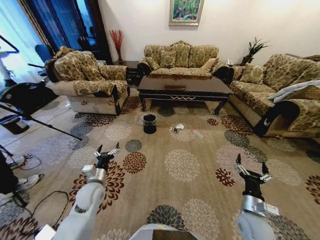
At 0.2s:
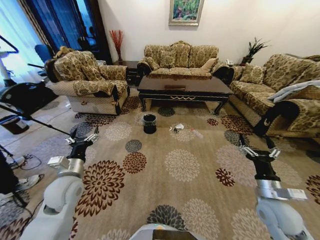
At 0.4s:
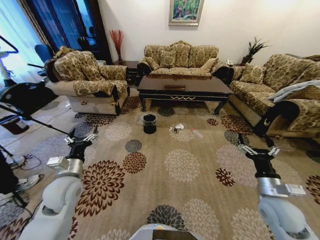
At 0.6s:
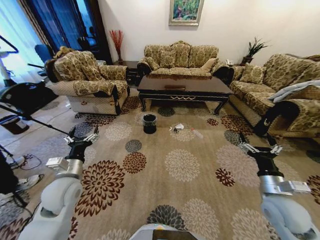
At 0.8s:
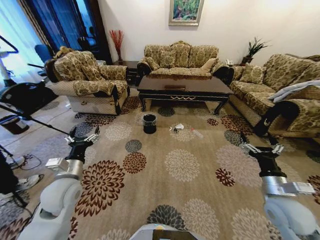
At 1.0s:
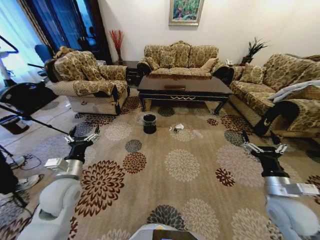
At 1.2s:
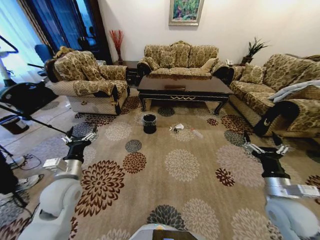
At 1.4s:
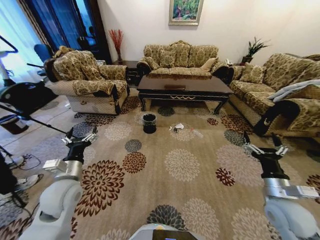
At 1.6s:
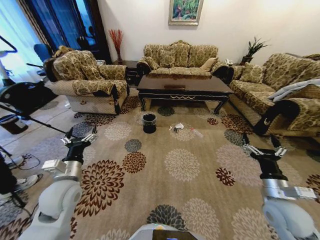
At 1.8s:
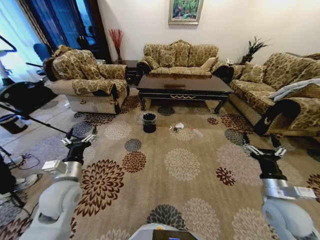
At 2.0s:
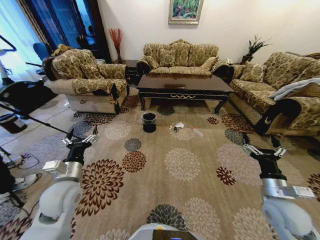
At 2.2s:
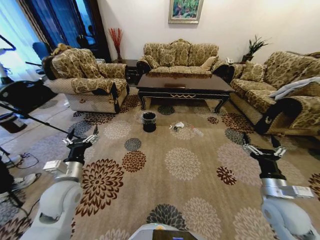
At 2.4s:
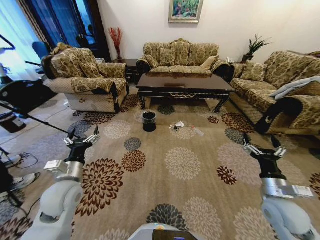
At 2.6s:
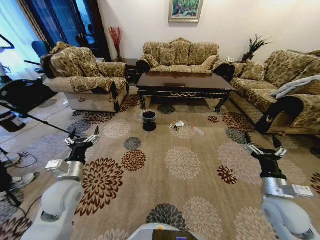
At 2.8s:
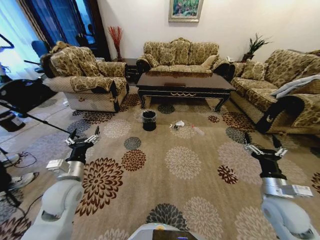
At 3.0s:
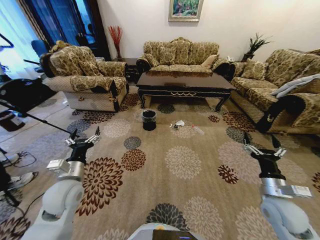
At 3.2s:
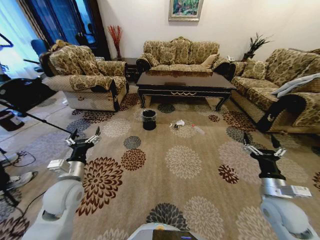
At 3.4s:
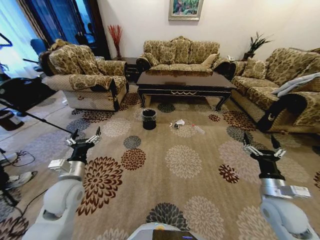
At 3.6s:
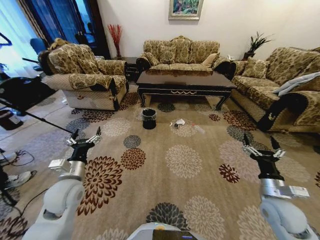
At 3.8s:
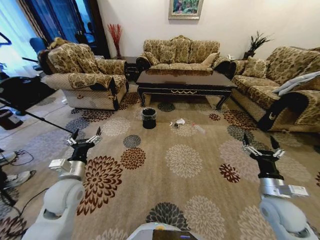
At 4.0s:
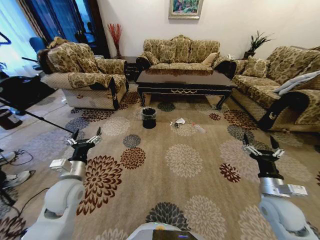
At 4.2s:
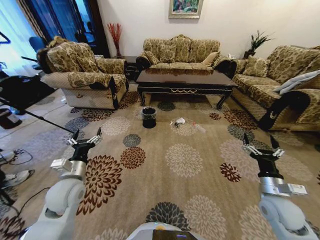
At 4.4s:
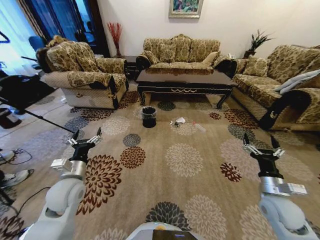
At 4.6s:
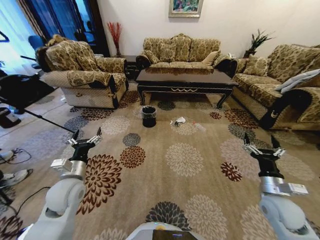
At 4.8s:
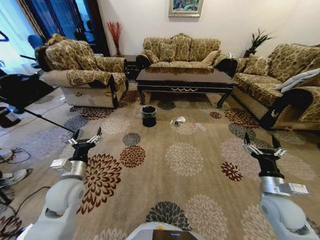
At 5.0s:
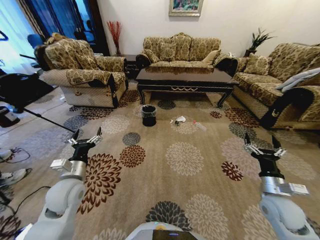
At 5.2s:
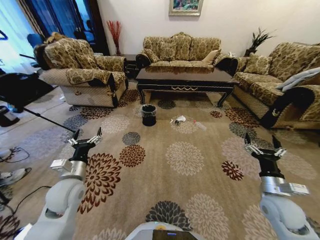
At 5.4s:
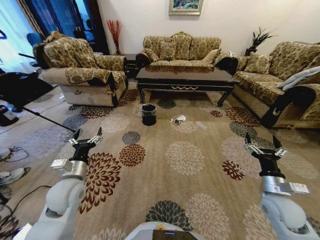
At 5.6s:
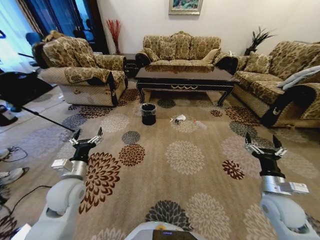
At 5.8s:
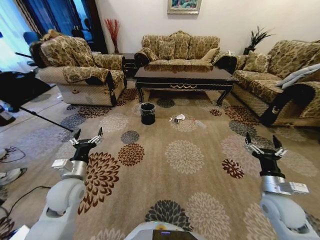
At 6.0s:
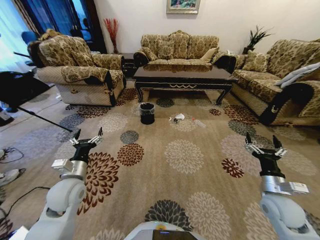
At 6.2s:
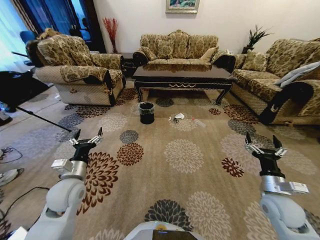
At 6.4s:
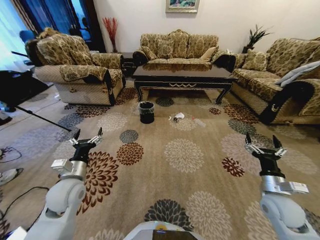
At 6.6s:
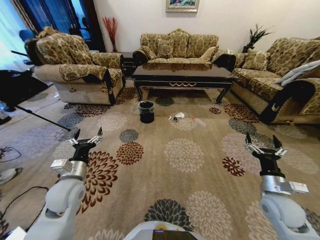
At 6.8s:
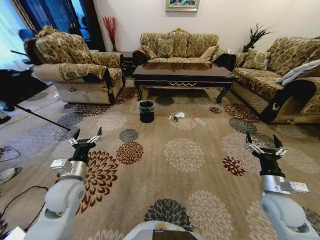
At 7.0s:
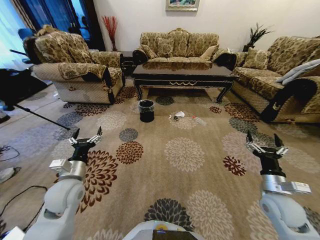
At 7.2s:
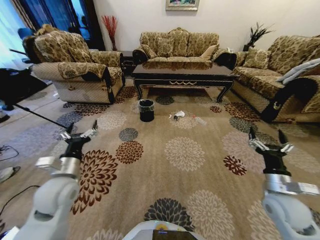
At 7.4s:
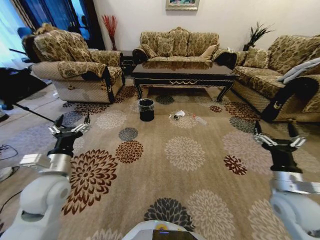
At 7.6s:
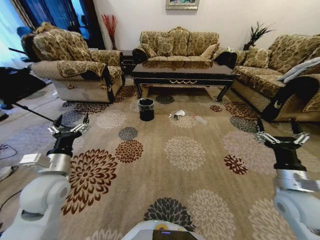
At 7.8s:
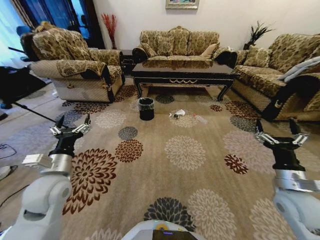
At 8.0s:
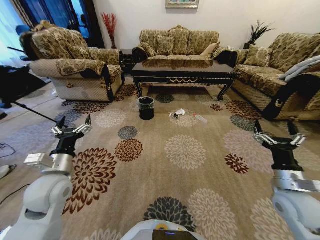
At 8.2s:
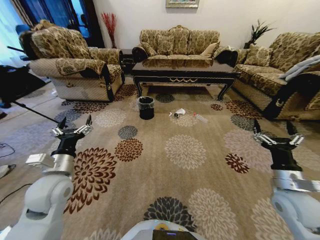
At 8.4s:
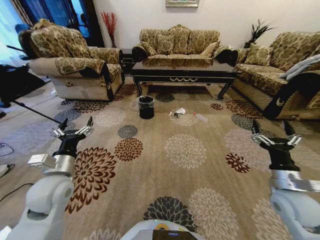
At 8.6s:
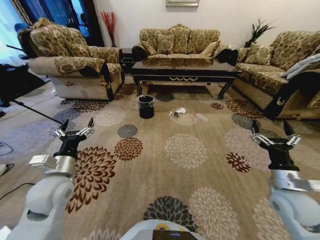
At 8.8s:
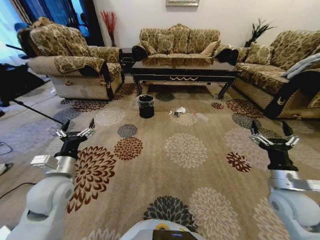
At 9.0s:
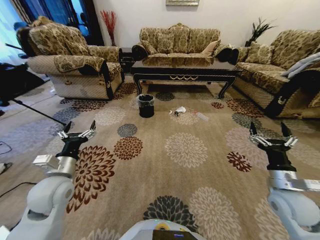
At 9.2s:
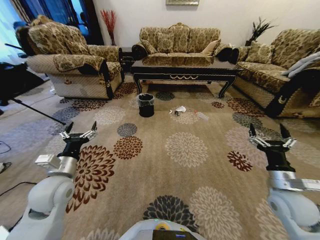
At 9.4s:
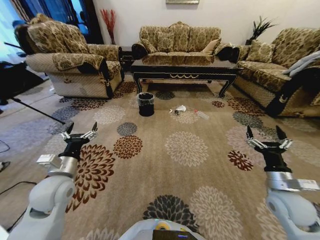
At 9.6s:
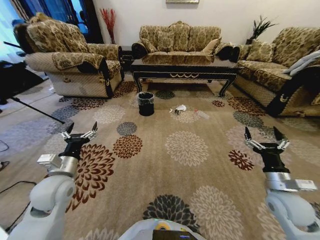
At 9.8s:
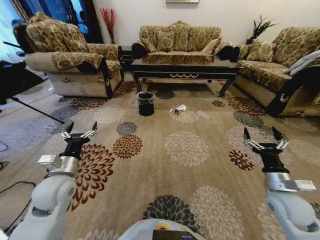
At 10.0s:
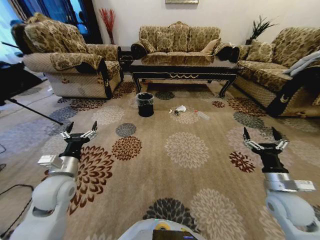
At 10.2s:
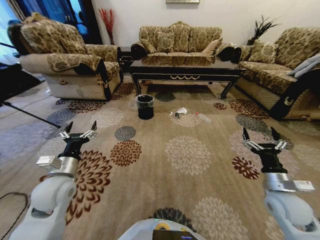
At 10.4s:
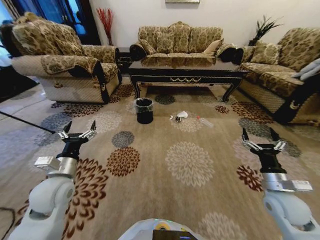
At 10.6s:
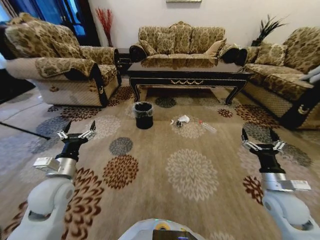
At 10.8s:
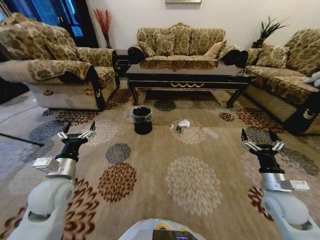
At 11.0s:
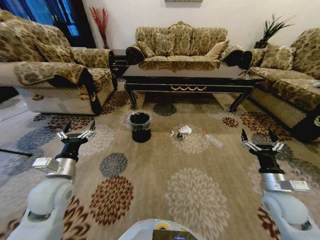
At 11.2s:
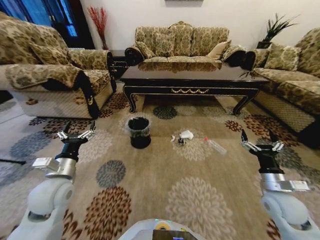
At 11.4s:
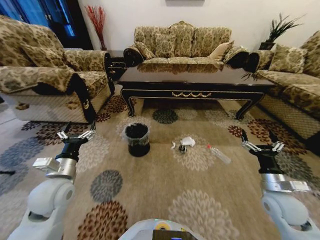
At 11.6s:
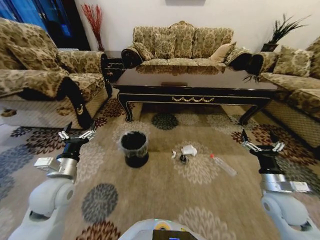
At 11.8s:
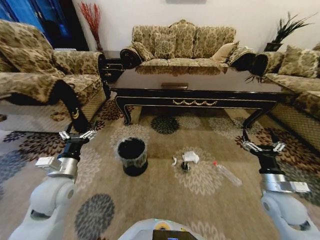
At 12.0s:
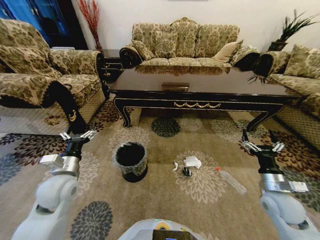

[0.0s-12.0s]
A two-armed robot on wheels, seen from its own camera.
Task of the whole recording: Move to the front of the table and pick up the trash from the floor, then place it into the trash bin.
6.0s to 7.6s: The two grippers go roughly 5 cm upward.

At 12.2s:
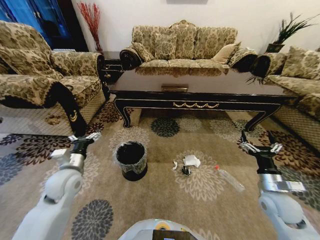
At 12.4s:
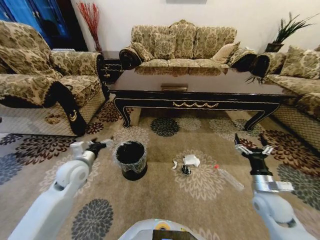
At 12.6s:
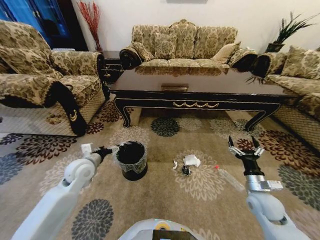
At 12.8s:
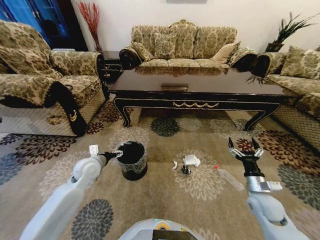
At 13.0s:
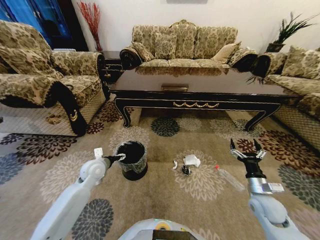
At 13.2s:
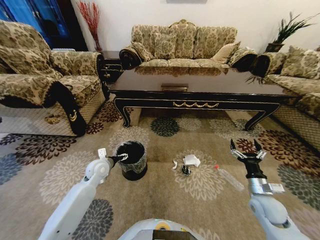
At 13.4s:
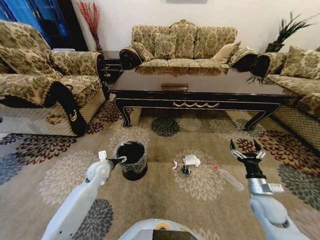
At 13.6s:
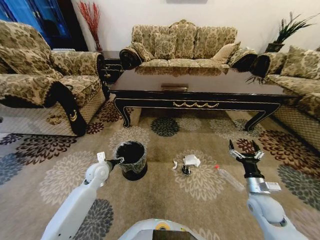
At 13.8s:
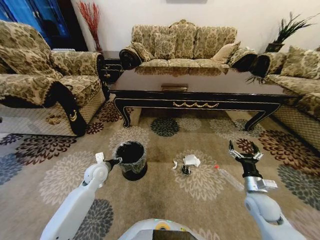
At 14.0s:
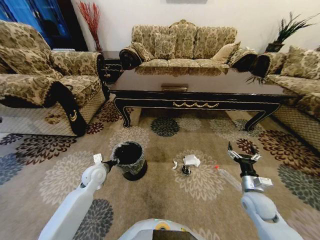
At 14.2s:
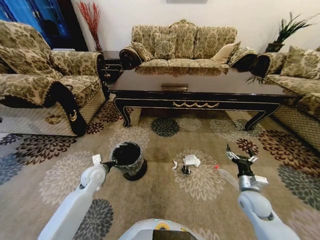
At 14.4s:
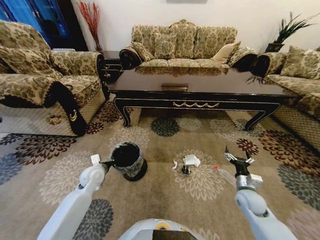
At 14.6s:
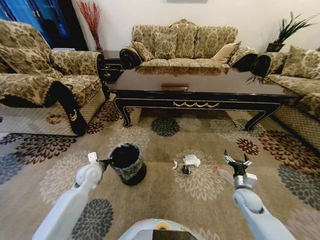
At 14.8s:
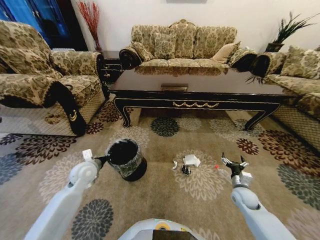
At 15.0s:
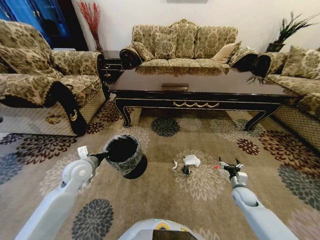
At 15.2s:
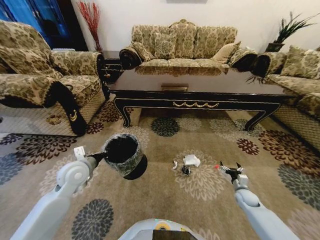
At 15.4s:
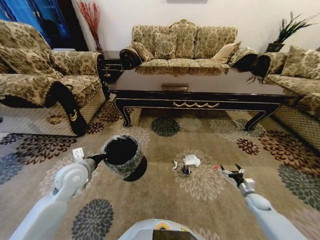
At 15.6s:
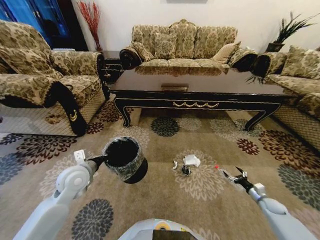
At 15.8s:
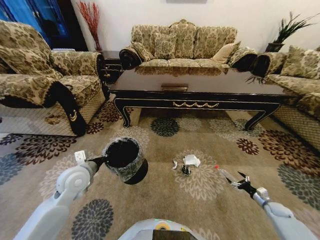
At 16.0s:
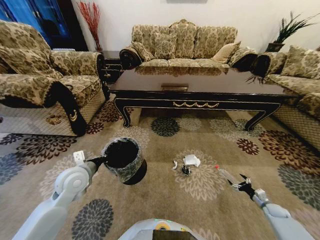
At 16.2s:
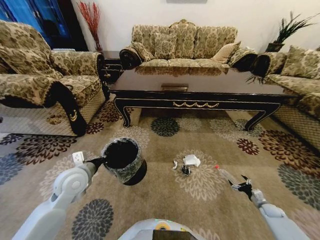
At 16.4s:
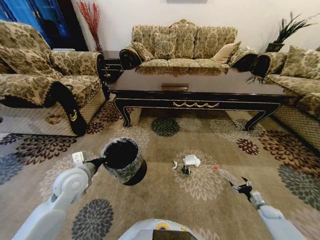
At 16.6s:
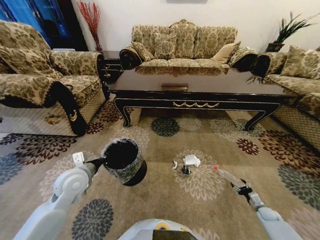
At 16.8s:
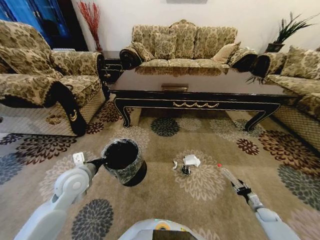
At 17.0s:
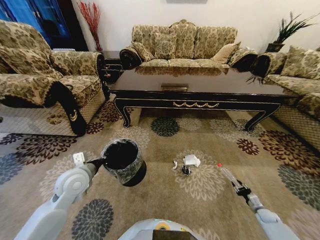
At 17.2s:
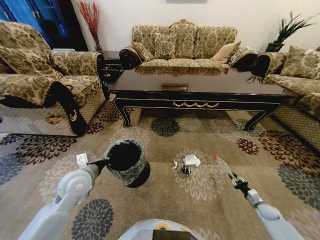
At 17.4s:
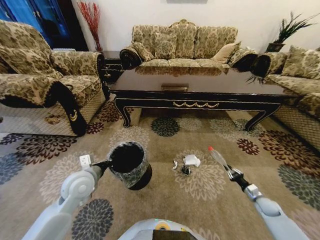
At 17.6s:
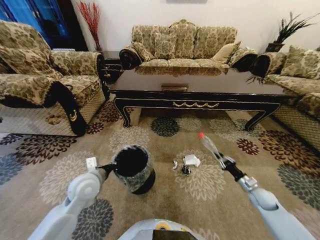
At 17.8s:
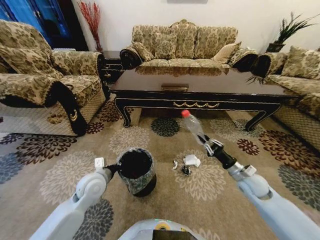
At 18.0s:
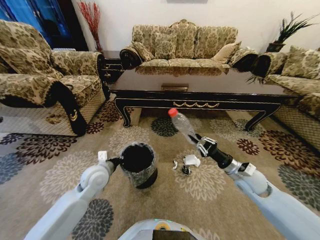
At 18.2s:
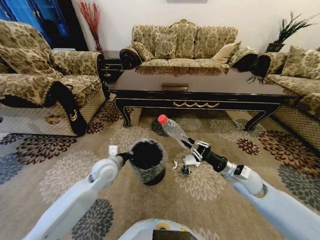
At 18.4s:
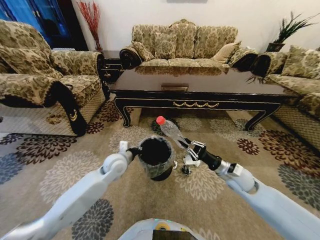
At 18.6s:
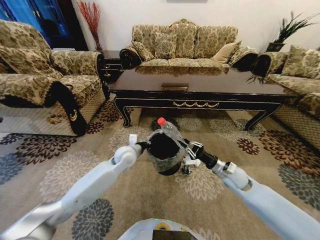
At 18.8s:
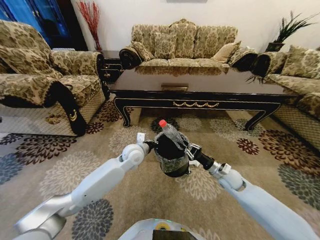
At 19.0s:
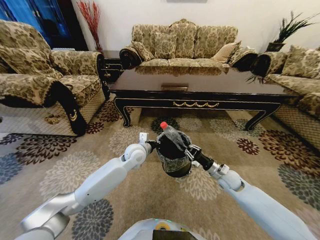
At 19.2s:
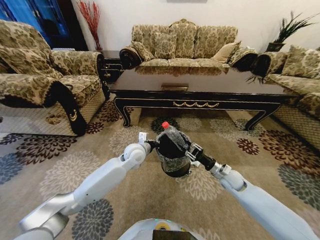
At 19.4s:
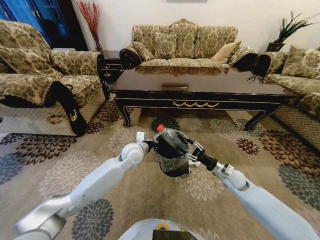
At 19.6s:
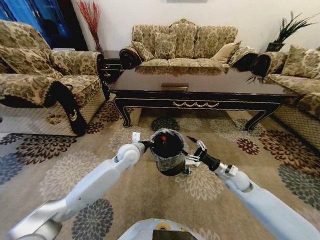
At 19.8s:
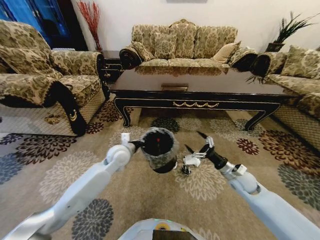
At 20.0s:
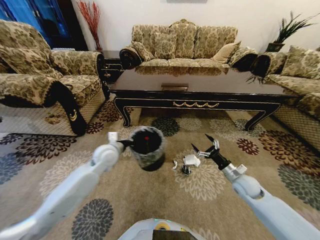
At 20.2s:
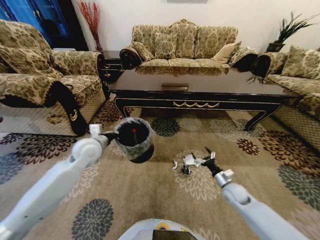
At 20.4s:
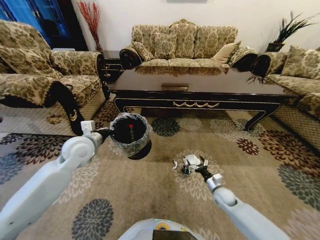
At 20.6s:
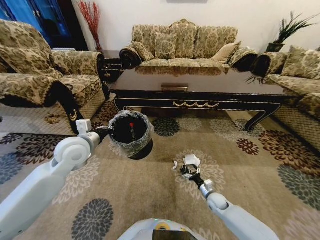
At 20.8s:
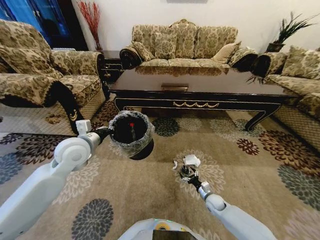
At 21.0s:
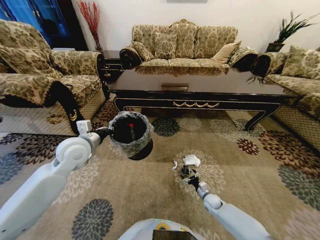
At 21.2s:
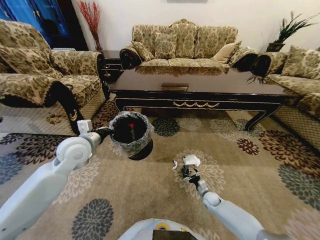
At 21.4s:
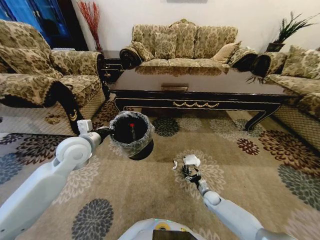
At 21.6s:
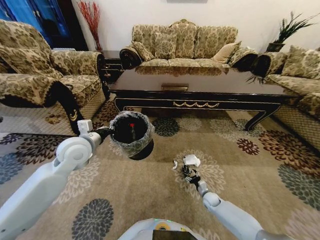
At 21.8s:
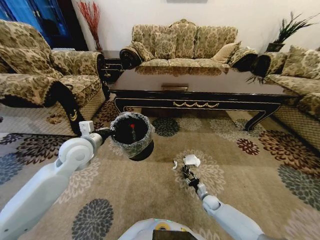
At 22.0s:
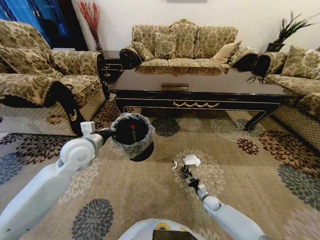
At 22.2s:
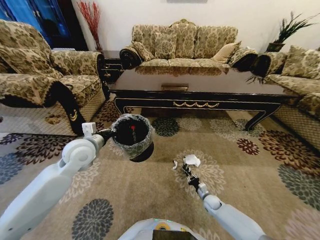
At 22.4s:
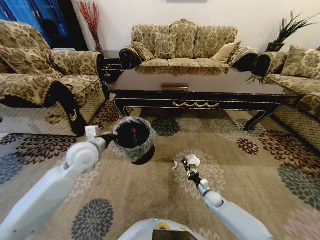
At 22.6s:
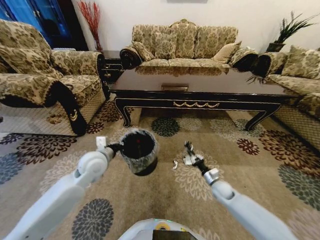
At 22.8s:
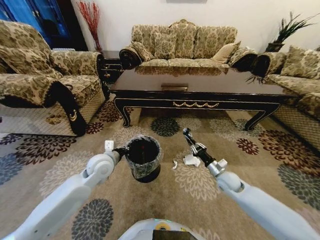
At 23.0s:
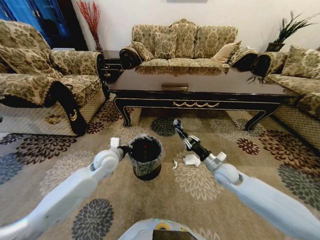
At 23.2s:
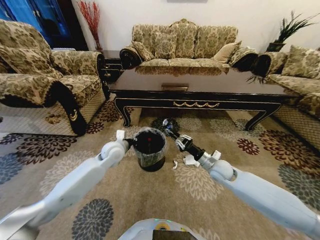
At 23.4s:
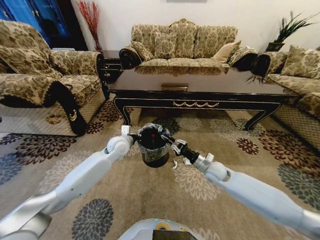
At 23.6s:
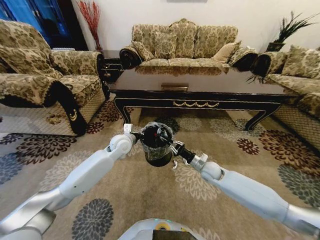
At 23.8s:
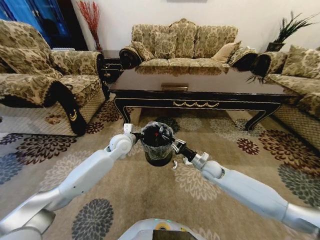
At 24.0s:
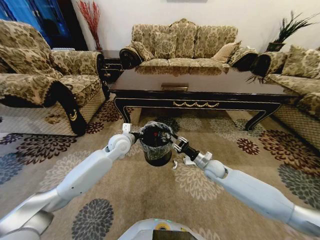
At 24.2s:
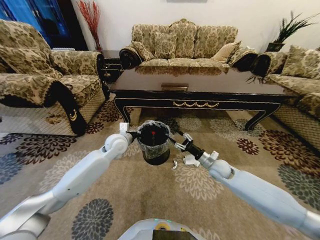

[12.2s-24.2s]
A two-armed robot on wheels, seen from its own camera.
Task of the whole recording: Move to the front of the table and pick up the trash from the floor, then place it into the trash bin.
12.2s to 13.8s: The left gripper heads downward and forward, covering some 15 cm, and closes its fingers. Meanwhile the right gripper moves downward, roughly 5 cm.
13.8s to 15.2s: The right gripper goes some 15 cm downward, forward and to the right. Meanwhile the left gripper moves upward, about 10 cm, and closes its fingers.
15.2s to 16.6s: The right gripper shifts about 15 cm to the right, downward and backward.
16.6s to 18.2s: The right gripper goes some 40 cm upward and to the left, and closes its fingers; the left gripper travels to the right and forward by approximately 10 cm.
18.2s to 19.8s: The left gripper moves forward, some 5 cm, while the right gripper heads downward, covering about 5 cm, and opens.
19.8s to 21.2s: The left gripper shifts approximately 15 cm to the left and upward, while the right gripper travels downward by about 25 cm.
21.2s to 22.6s: The left gripper shifts some 5 cm downward. Meanwhile the right gripper heads upward, covering some 15 cm, and closes up.
22.6s to 24.2s: The left gripper moves forward and to the right, roughly 10 cm. Meanwhile the right gripper is displaced upward and forward by roughly 15 cm, and opens.
